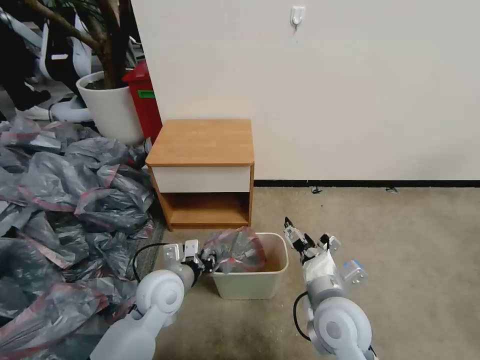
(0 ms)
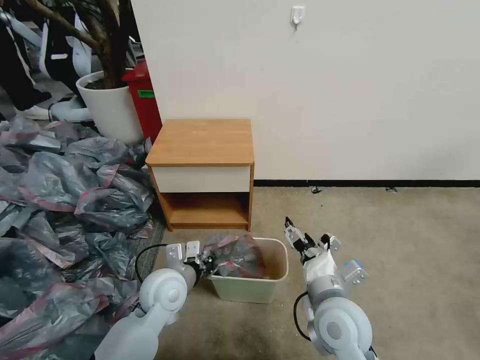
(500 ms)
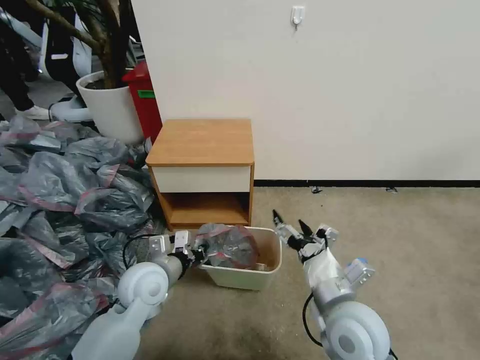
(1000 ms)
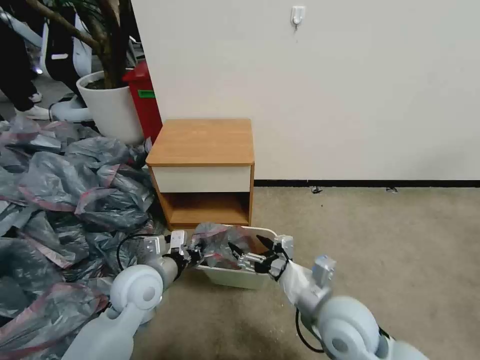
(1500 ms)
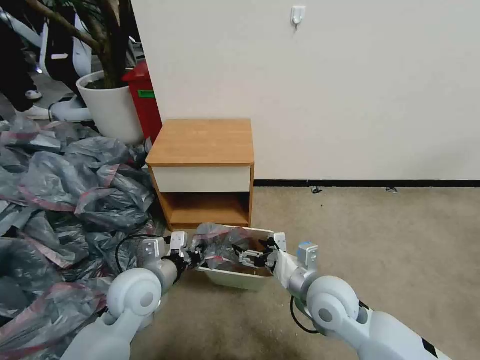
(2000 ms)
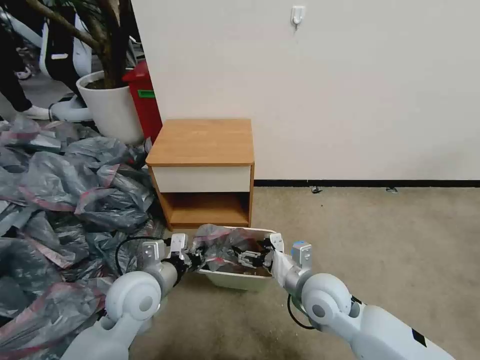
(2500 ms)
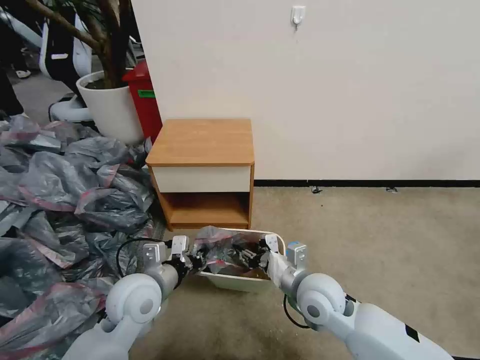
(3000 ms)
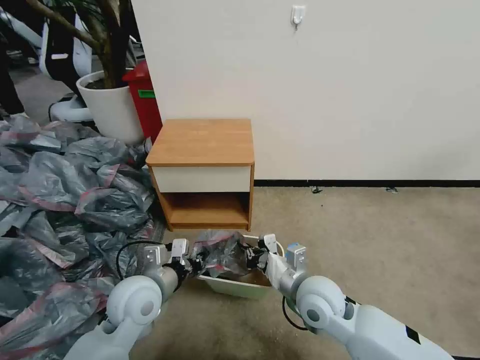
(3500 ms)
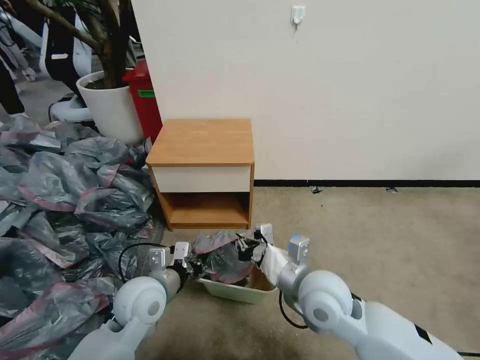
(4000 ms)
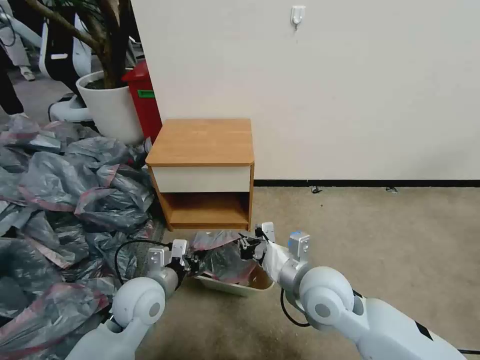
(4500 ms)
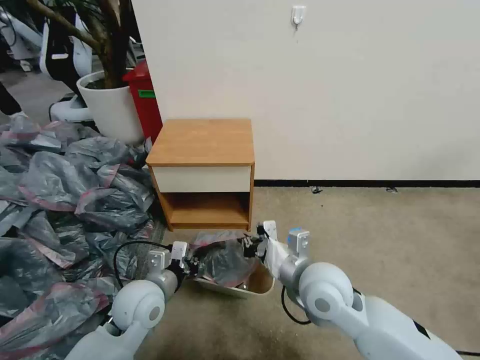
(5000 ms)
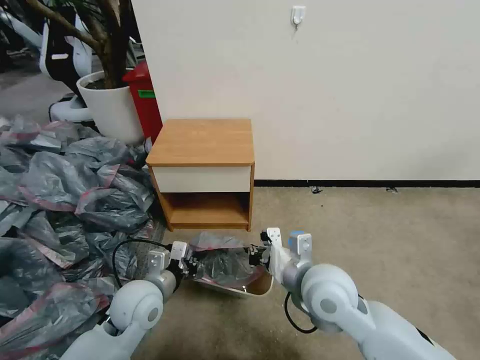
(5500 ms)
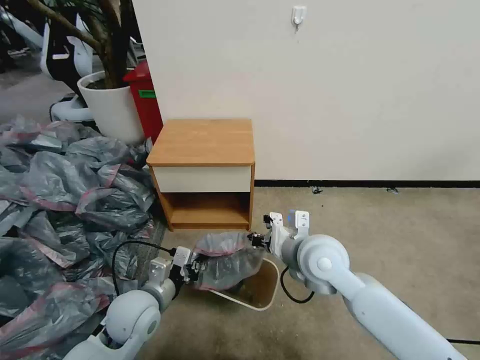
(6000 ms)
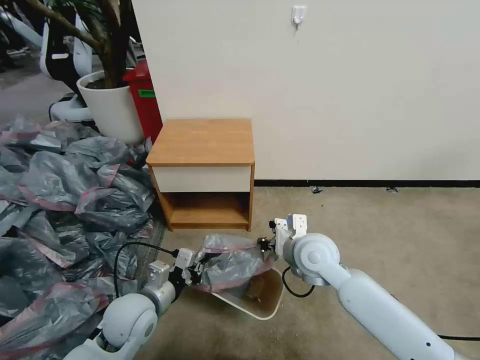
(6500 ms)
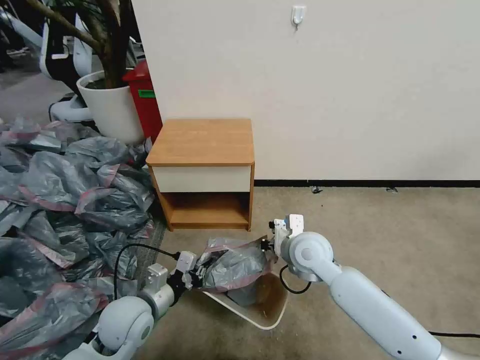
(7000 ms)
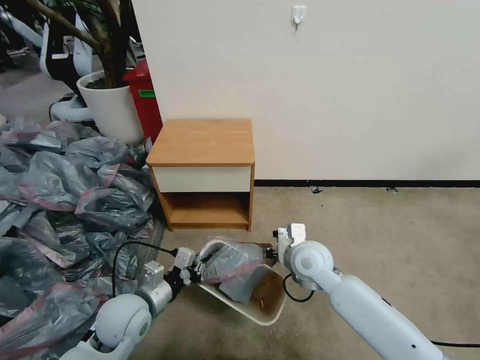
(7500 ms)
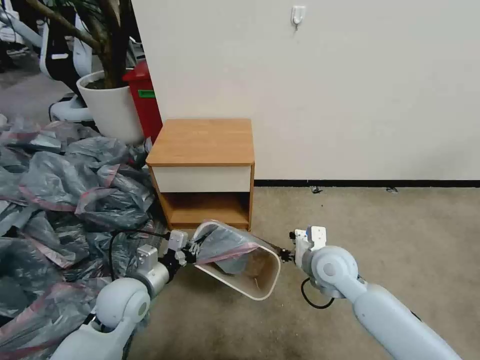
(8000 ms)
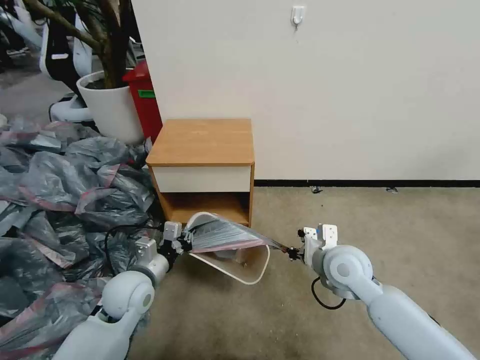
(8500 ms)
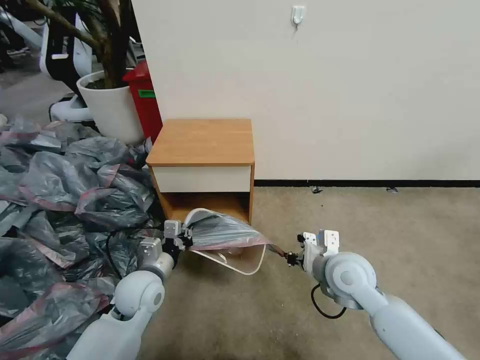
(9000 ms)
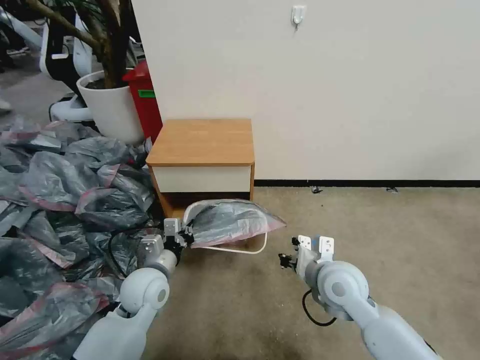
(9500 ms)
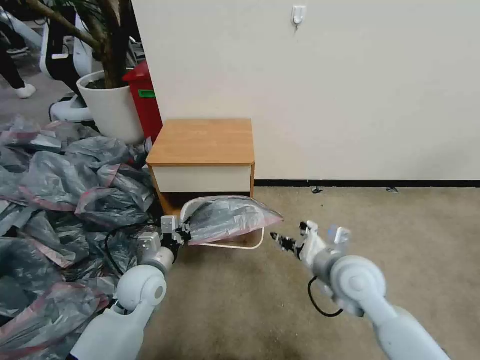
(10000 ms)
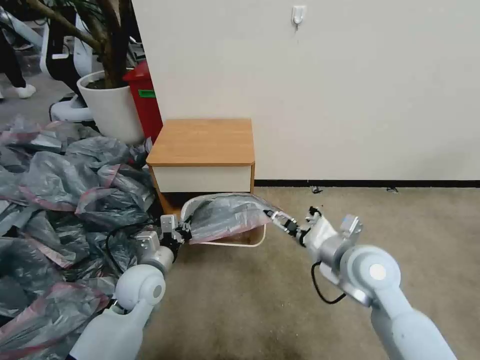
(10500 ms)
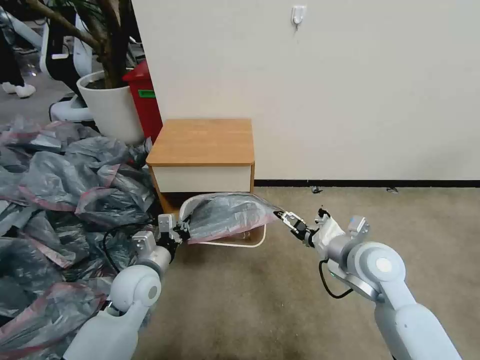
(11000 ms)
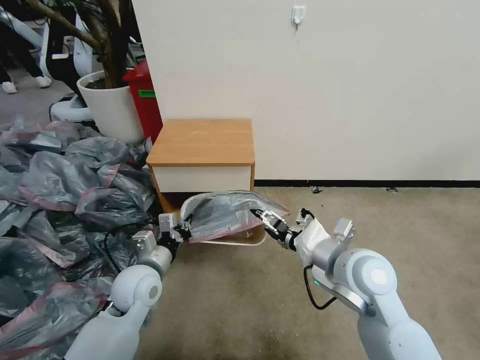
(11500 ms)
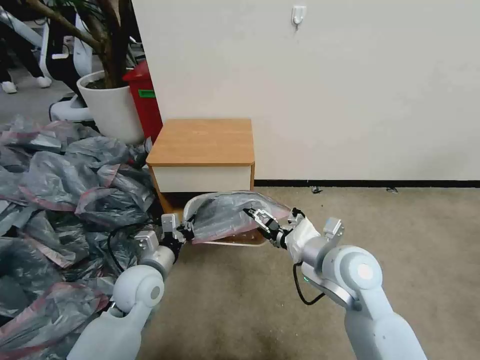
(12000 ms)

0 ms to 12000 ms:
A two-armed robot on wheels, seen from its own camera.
Task of the whole recording: Pick up the garbage bag from the table and place it over the trash can.
0 ms to 2000 ms: The left gripper moves about 5 cm.
2000 ms to 4000 ms: The right gripper closes its fingers.
4000 ms to 6000 ms: The right gripper goes roughly 5 cm forward.
6000 ms to 8000 ms: The right gripper travels downward and to the right by approximately 10 cm.
8000 ms to 10000 ms: The right gripper ends up about 5 cm from where it was.
10000 ms to 12000 ms: The right gripper opens its fingers.

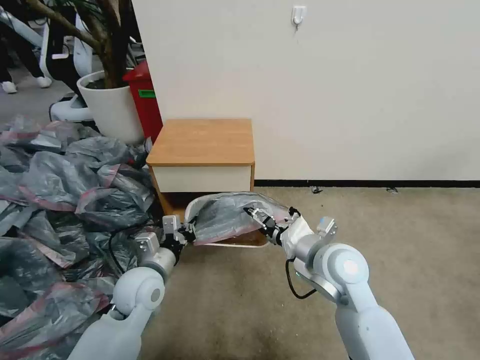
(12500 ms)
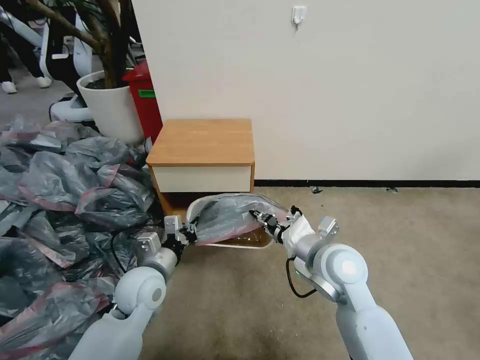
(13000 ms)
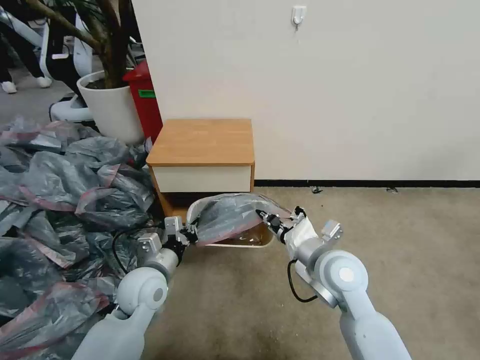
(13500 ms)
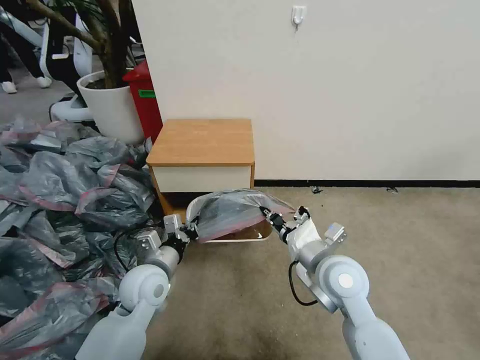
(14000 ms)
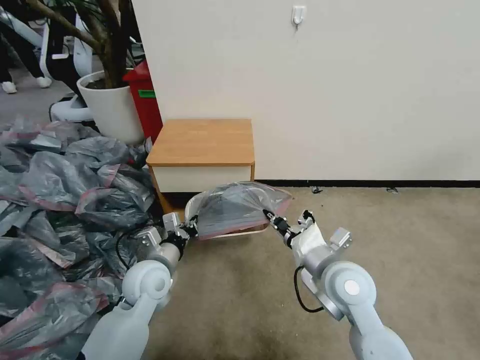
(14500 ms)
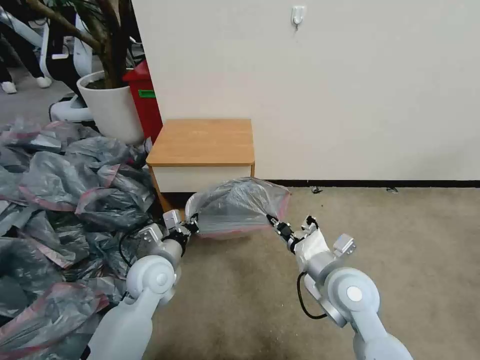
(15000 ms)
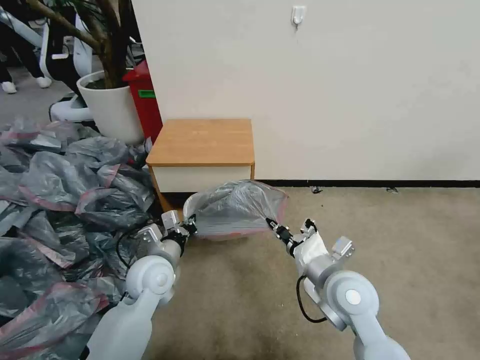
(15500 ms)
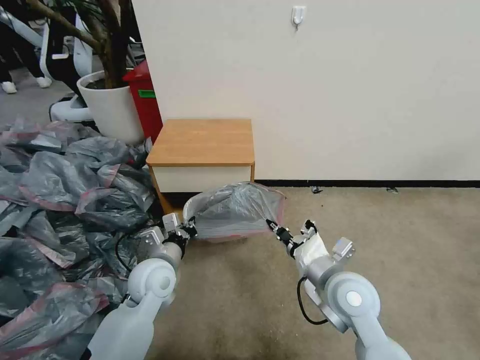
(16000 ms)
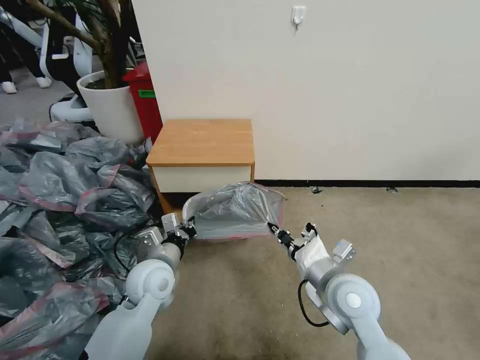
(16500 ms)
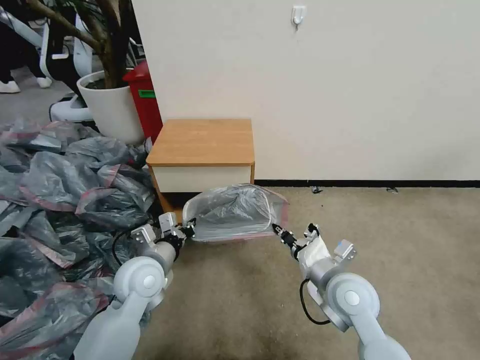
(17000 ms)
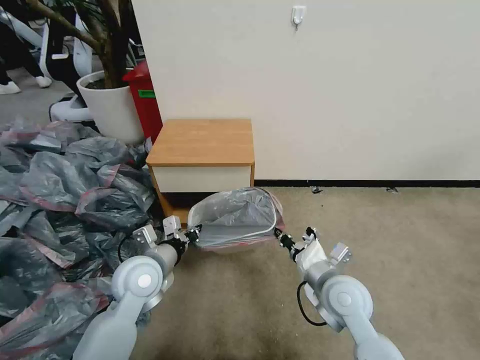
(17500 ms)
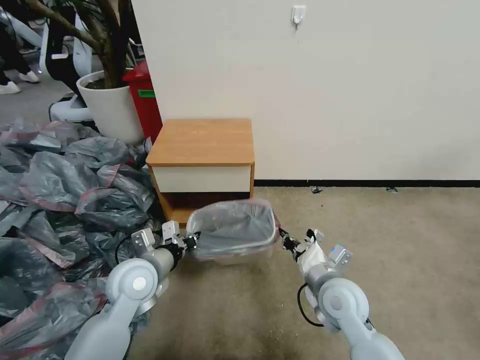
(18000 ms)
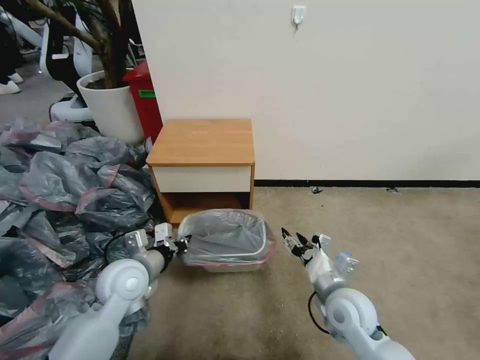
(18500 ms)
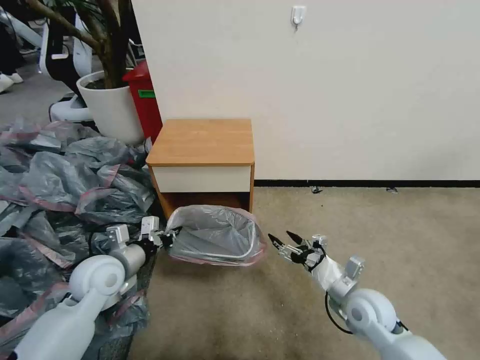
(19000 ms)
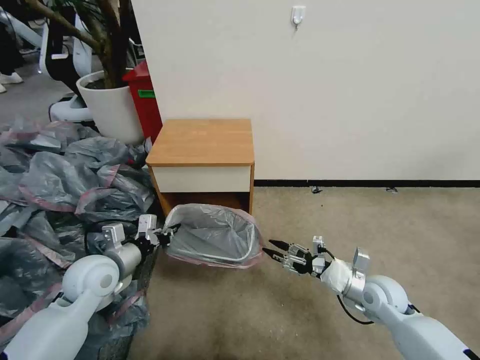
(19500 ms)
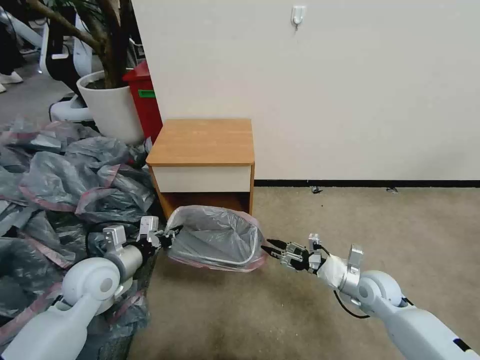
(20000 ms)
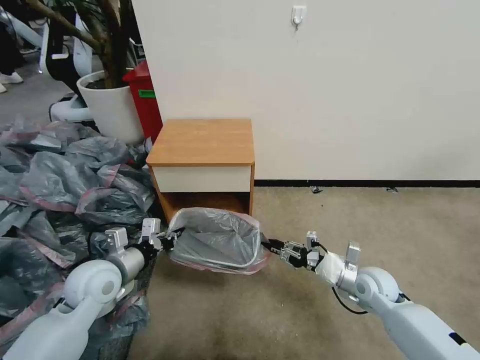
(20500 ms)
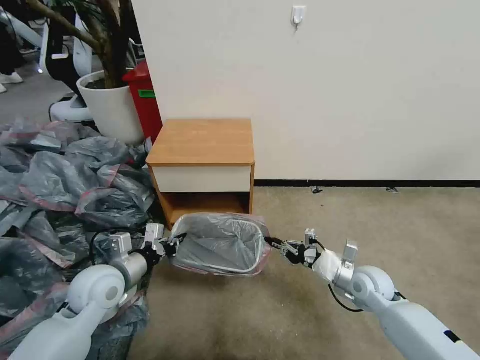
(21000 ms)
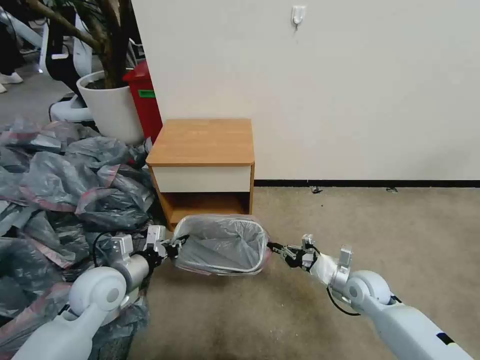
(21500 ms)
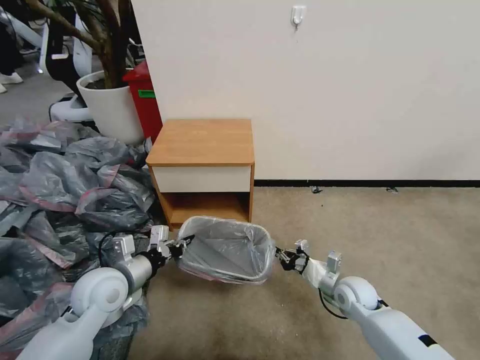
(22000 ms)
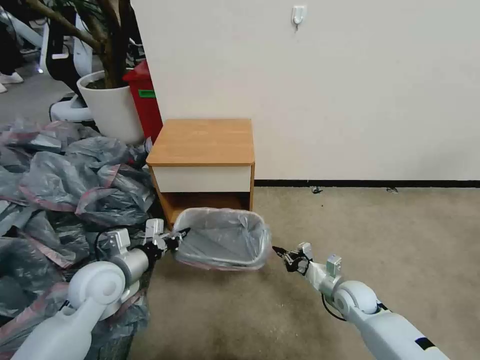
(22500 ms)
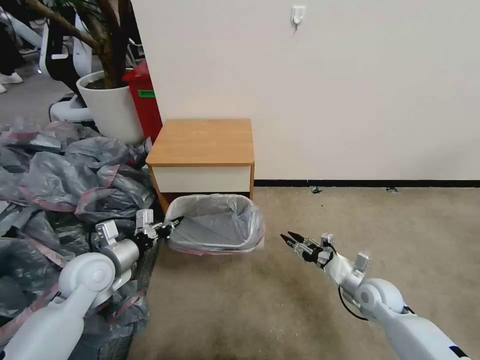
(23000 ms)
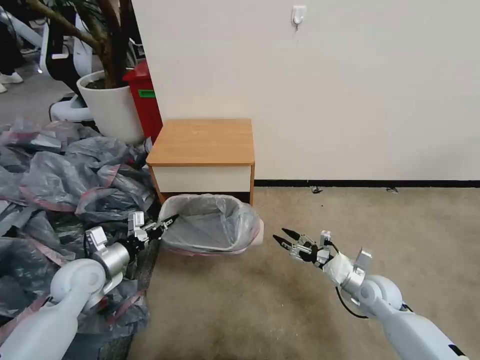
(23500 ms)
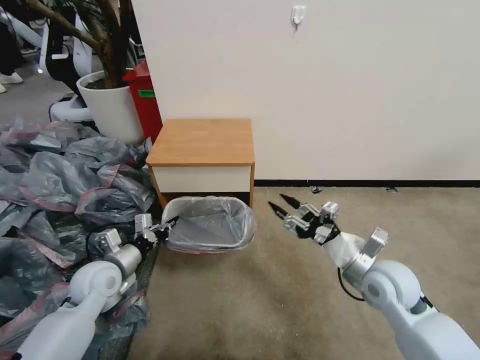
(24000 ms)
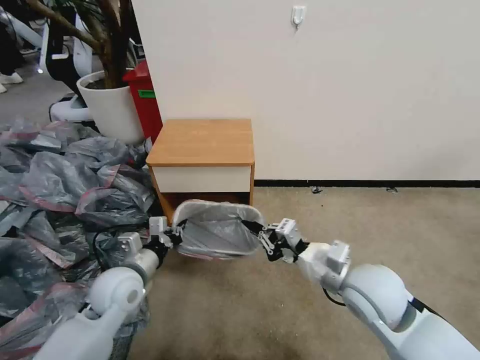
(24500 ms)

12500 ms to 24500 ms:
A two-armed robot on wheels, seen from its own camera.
Task of the whole recording: Pick up the garbage bag from the table and place it over the trash can.
12500 ms to 14500 ms: The right gripper closes up.
14500 ms to 16500 ms: The grippers move only a little.
16500 ms to 18500 ms: The right gripper shifts roughly 5 cm downward, and opens up.
18500 ms to 20500 ms: The left gripper goes about 5 cm to the left. The right gripper is displaced to the right, forward and downward by approximately 15 cm, and closes its fingers.
20500 ms to 22500 ms: The right gripper goes some 5 cm downward.
22500 ms to 24500 ms: The left gripper goes to the left and returns, about 5 cm each way. The right gripper moves upward, some 25 cm, and opens, then closes once more.

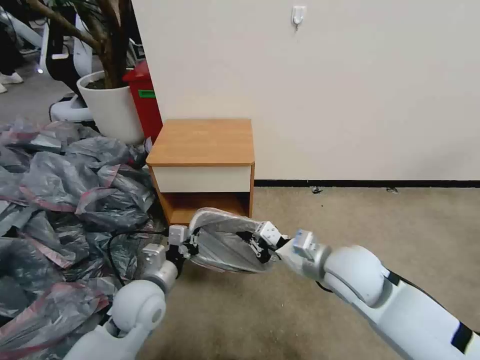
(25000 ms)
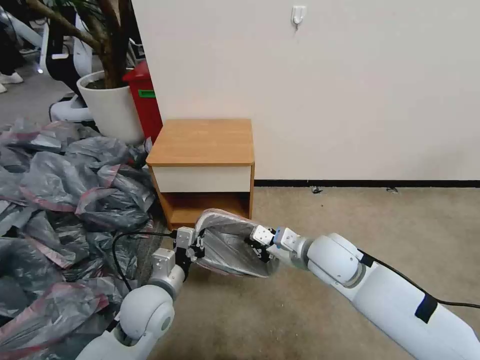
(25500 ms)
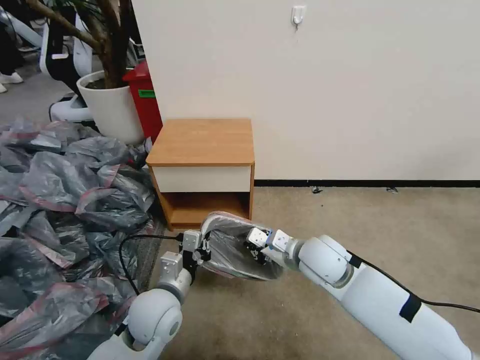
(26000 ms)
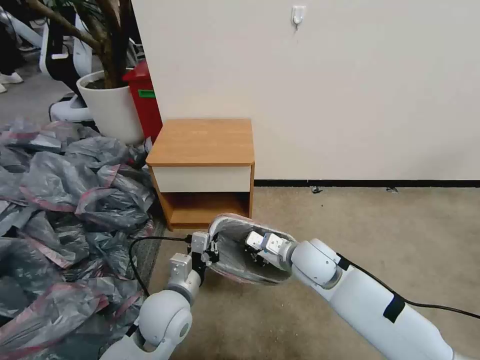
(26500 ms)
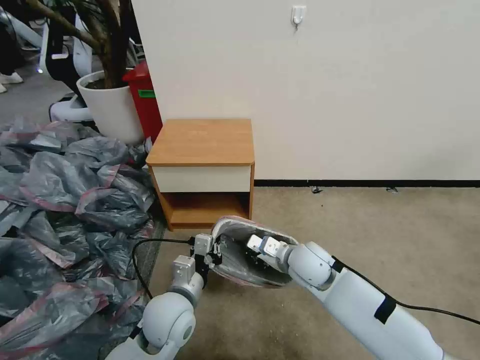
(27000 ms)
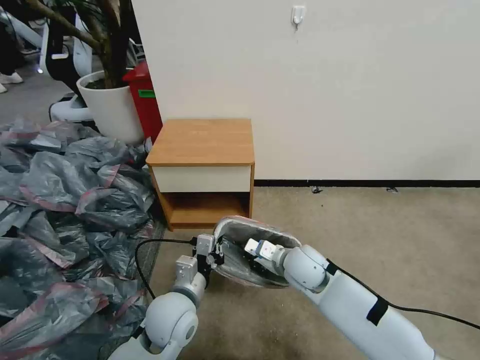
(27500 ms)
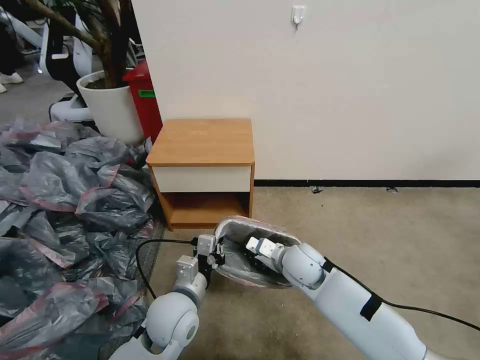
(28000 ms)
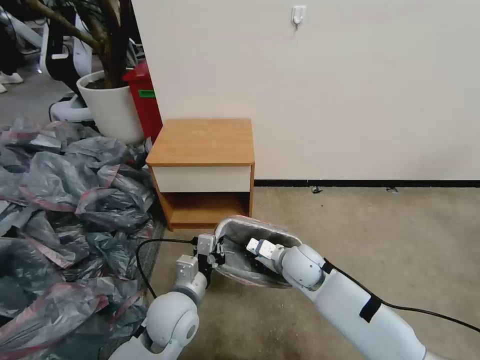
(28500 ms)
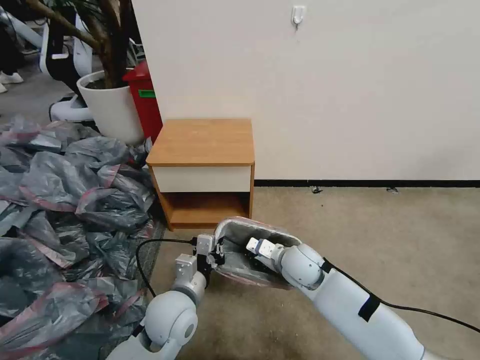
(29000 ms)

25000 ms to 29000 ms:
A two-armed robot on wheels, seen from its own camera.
Task of the whole recording: Pick up the garbage bag from the table and place it over the trash can.
25000 ms to 27000 ms: The left gripper moves to the right, approximately 5 cm. The right gripper shifts approximately 10 cm downward and forward.
27000 ms to 29000 ms: The grippers make only small movements.
